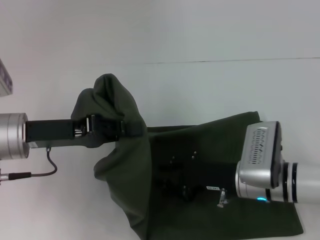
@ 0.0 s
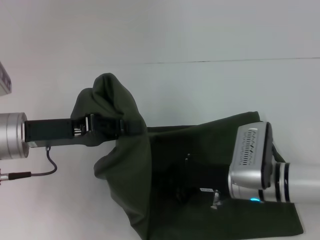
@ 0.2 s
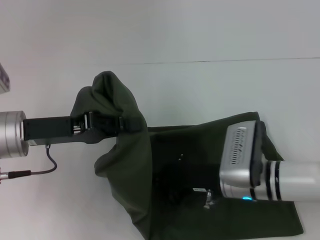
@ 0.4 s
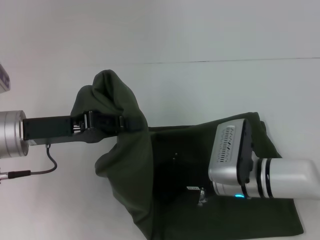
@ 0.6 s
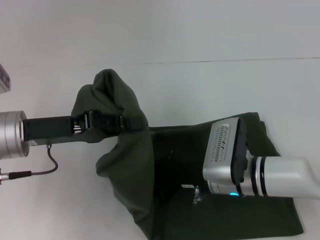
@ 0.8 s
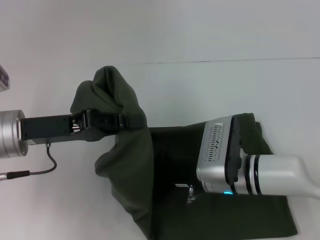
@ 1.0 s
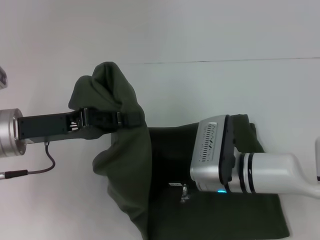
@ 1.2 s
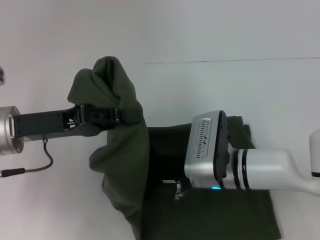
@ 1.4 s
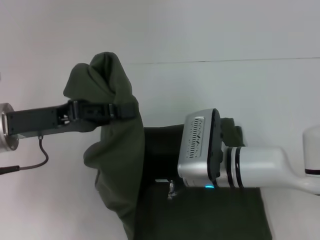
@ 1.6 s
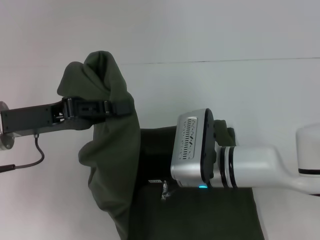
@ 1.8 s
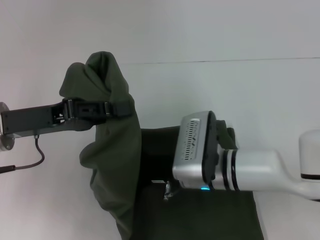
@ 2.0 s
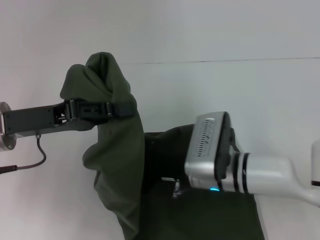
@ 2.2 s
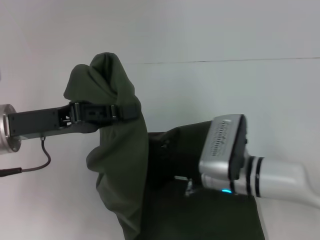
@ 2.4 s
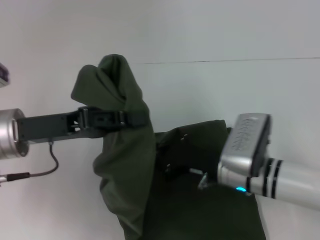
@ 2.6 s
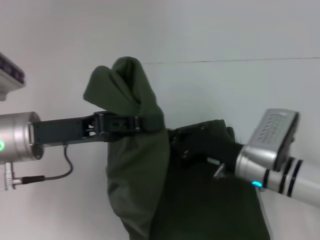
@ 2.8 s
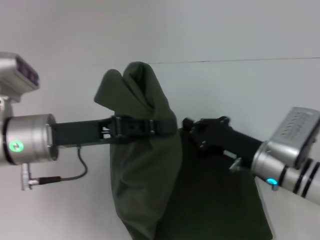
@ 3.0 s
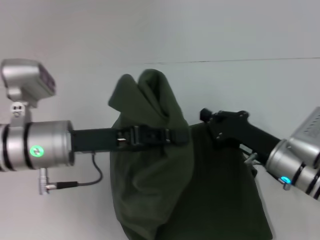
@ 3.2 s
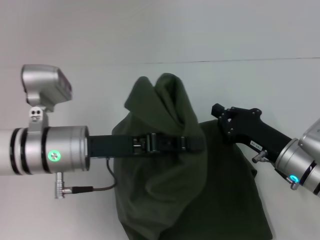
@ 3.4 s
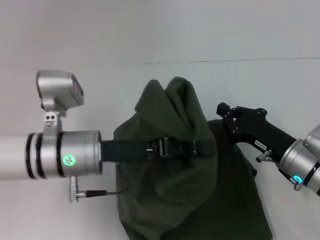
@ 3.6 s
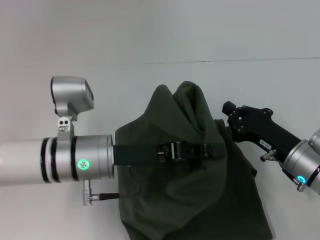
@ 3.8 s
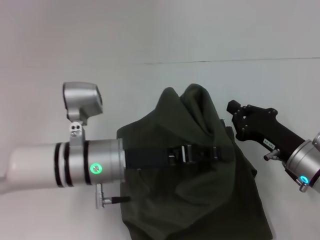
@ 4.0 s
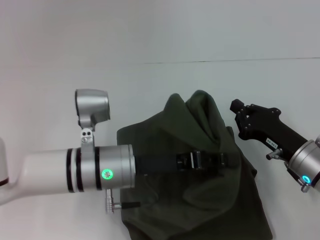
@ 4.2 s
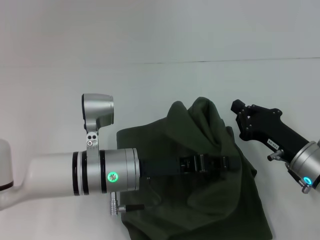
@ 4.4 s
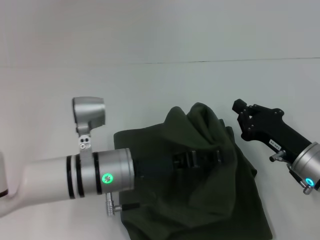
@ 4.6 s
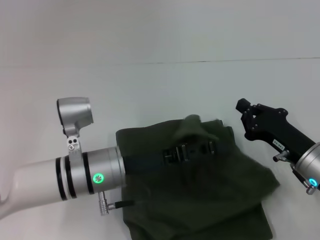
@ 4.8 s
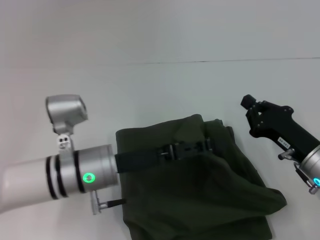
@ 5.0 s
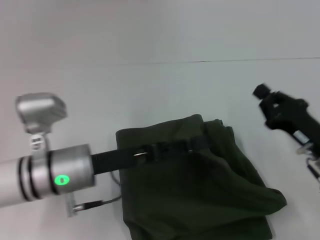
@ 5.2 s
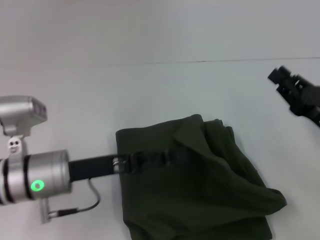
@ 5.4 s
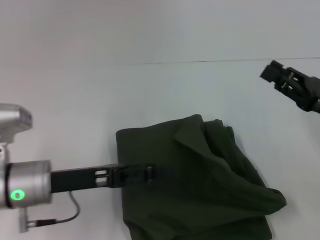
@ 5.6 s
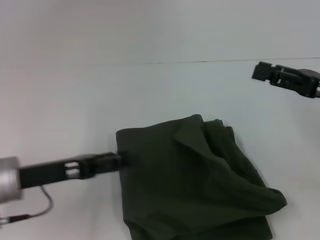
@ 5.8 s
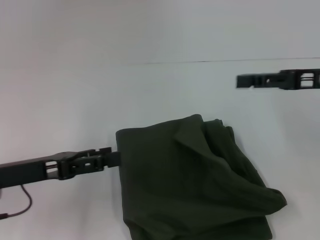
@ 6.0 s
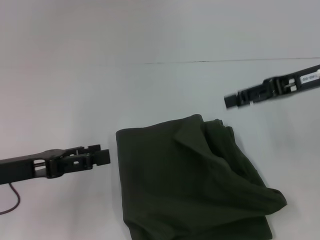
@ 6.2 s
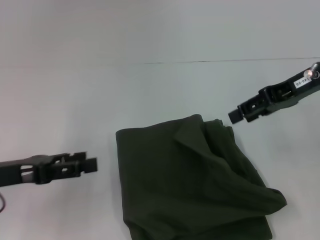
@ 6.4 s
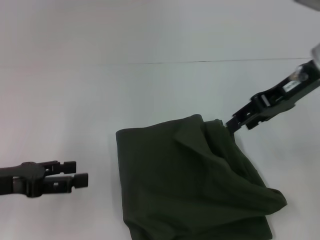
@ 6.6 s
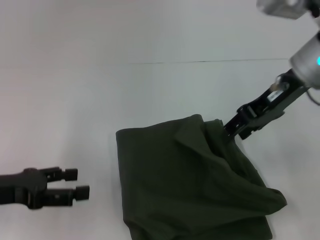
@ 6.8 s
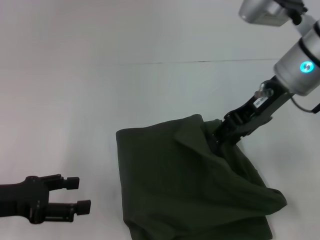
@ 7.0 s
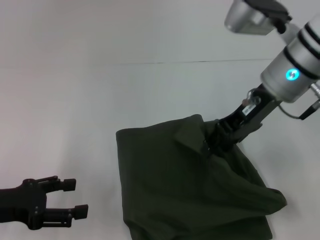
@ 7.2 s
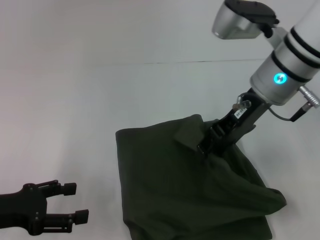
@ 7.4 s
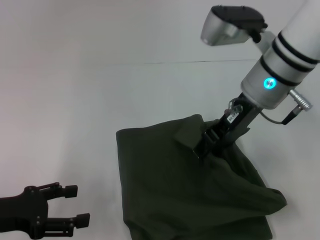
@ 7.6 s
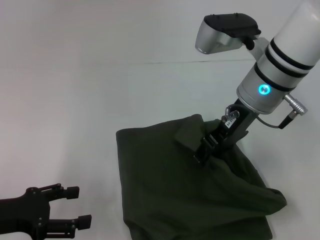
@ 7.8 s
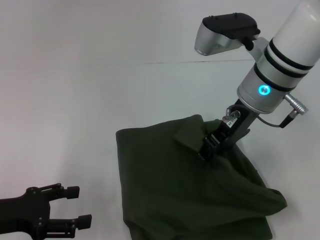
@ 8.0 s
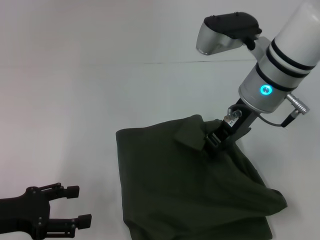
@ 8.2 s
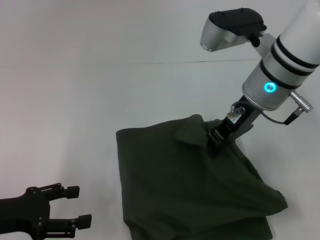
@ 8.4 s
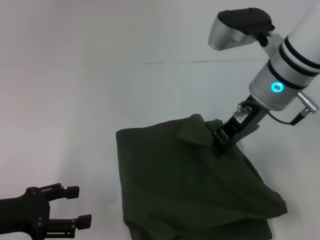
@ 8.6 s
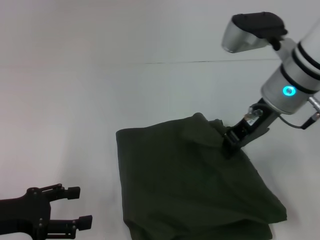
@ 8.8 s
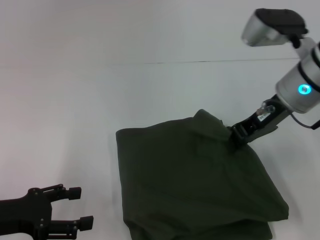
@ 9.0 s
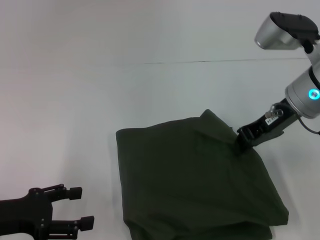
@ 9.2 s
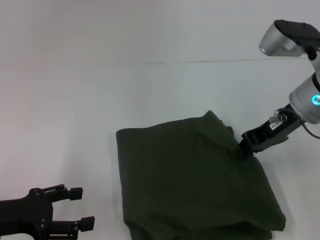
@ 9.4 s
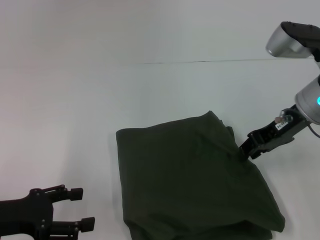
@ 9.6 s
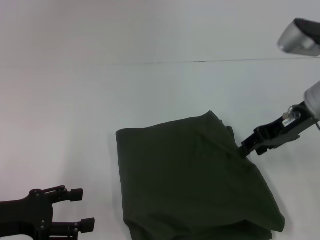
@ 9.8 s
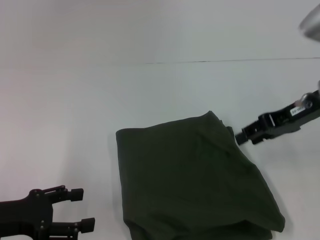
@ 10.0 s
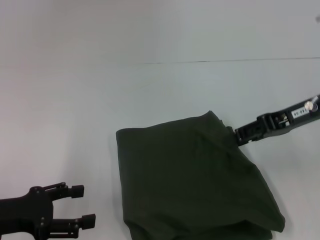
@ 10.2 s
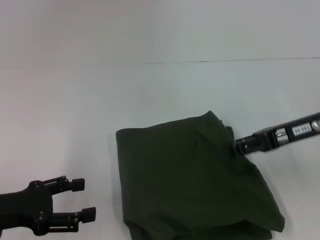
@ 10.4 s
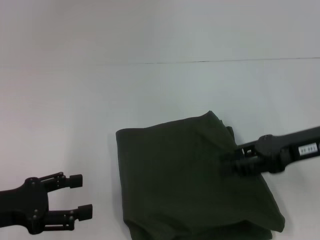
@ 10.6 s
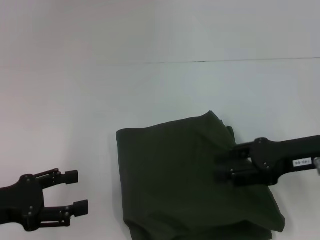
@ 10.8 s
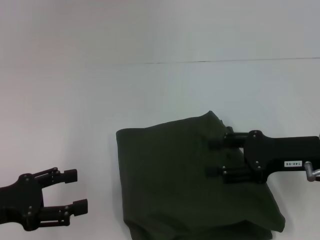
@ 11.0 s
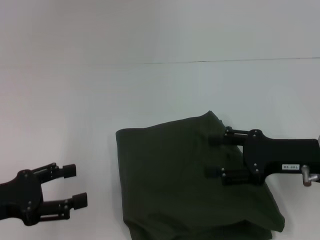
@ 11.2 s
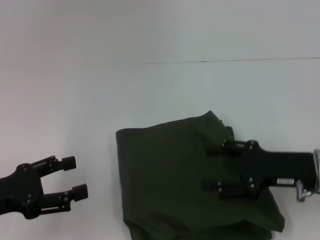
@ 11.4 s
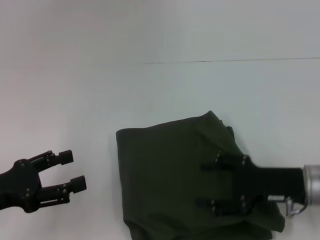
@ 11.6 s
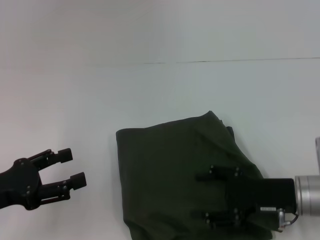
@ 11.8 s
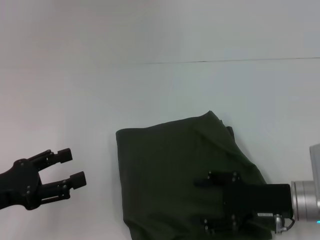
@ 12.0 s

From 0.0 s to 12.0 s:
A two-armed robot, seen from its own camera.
Step, from 0.0 s to 5.0 s: Fold the clothes with your left hand.
From 0.0 s to 1.6 s: The right gripper heads to the left, covering approximately 10 cm, and closes up.
From 1.6 s to 3.0 s: The left gripper is displaced to the right by roughly 5 cm; the right gripper is displaced to the right by roughly 10 cm.
From 3.0 s to 4.4 s: The left gripper moves to the right and downward, some 10 cm; the right gripper is displaced to the right by some 5 cm.
From 4.4 s to 6.0 s: The left gripper heads to the left, covering some 15 cm, and opens. The right gripper heads upward, covering about 15 cm, and opens.
From 6.0 s to 7.6 s: The left gripper moves roughly 5 cm, while the right gripper shifts roughly 15 cm to the left.
From 7.6 s to 9.0 s: The right gripper shifts some 5 cm to the right, and closes.
From 9.0 s to 10.4 s: The right gripper shifts roughly 5 cm to the right, and opens up.
From 10.4 s to 12.0 s: The right gripper goes some 15 cm downward and backward.

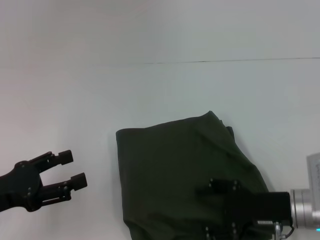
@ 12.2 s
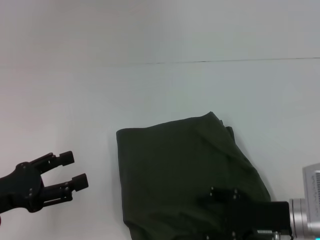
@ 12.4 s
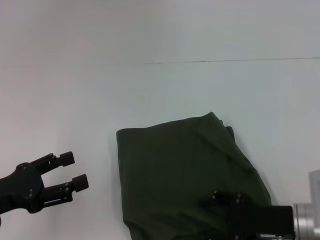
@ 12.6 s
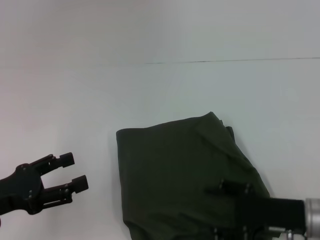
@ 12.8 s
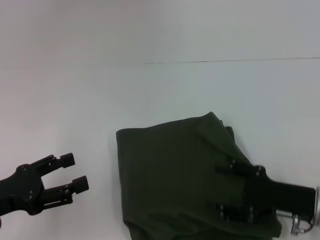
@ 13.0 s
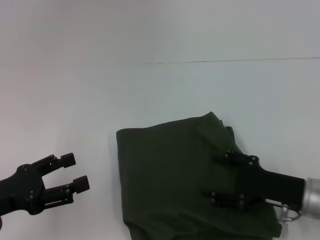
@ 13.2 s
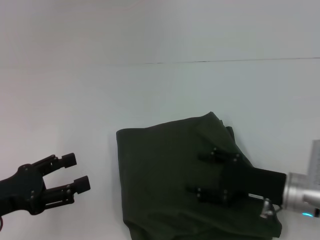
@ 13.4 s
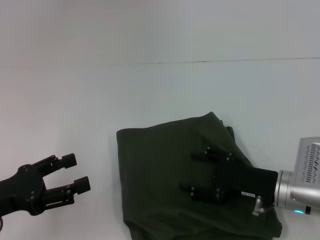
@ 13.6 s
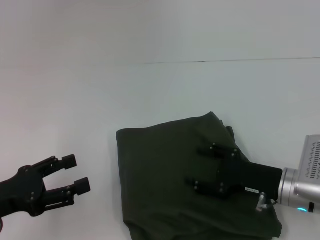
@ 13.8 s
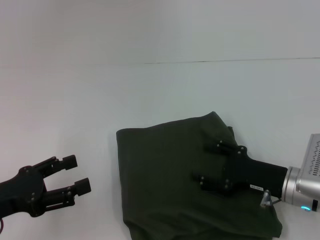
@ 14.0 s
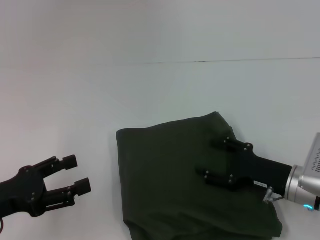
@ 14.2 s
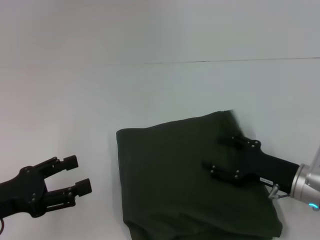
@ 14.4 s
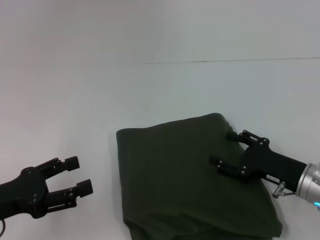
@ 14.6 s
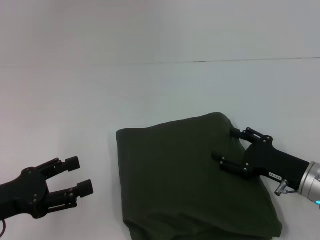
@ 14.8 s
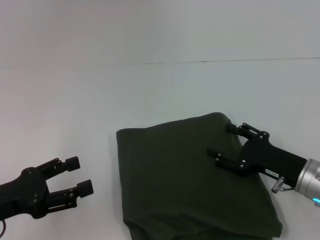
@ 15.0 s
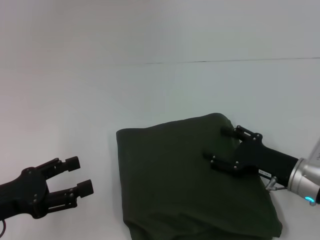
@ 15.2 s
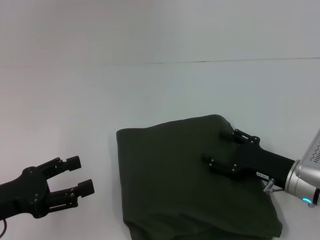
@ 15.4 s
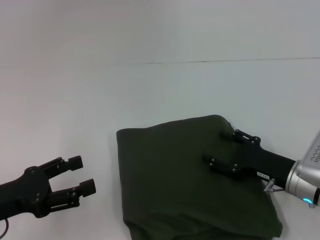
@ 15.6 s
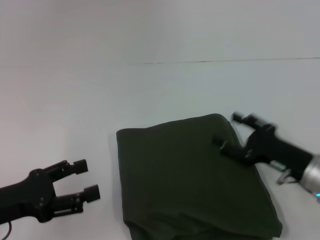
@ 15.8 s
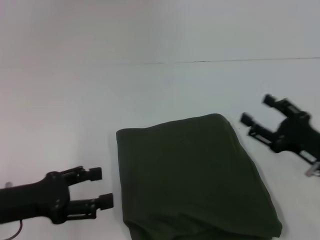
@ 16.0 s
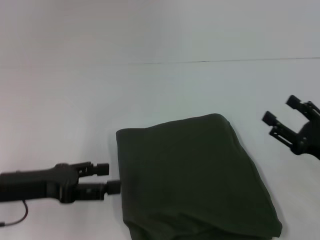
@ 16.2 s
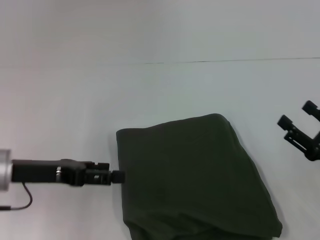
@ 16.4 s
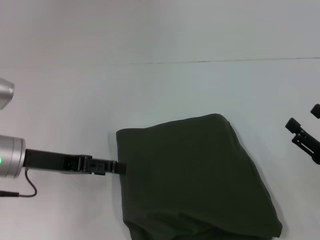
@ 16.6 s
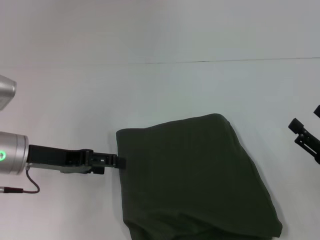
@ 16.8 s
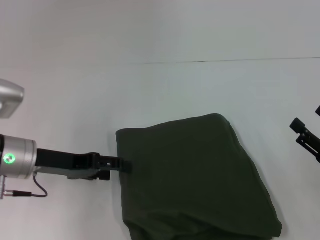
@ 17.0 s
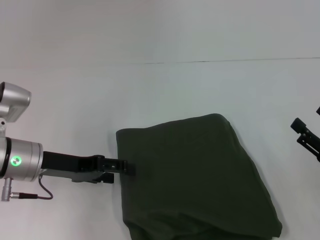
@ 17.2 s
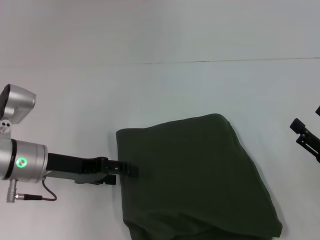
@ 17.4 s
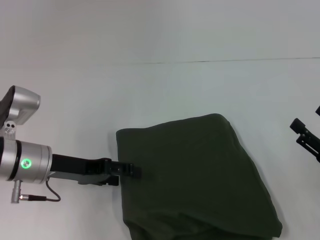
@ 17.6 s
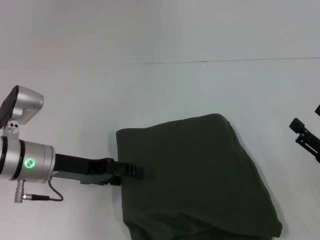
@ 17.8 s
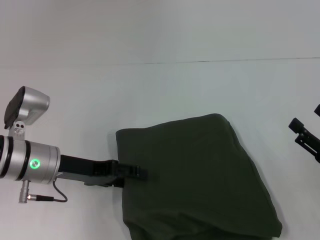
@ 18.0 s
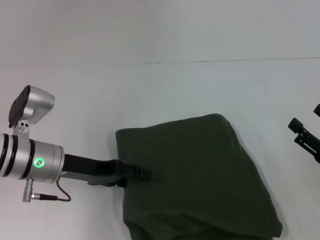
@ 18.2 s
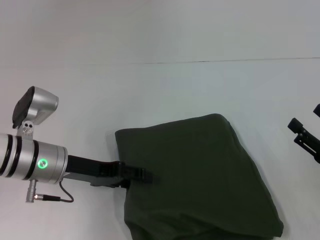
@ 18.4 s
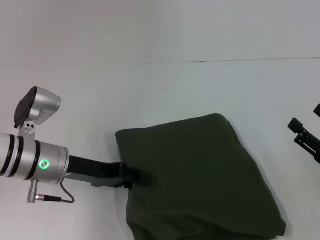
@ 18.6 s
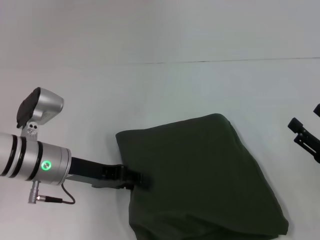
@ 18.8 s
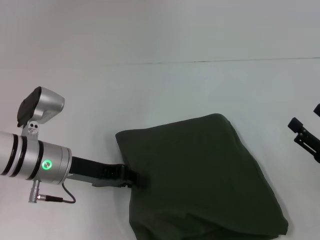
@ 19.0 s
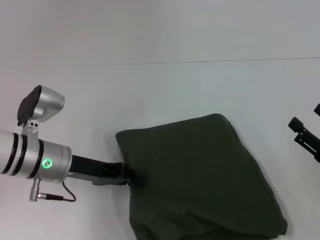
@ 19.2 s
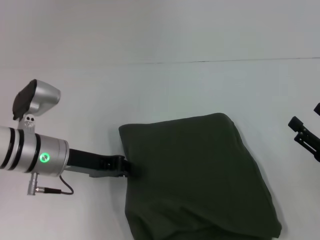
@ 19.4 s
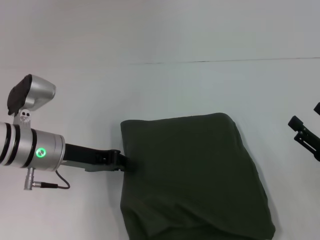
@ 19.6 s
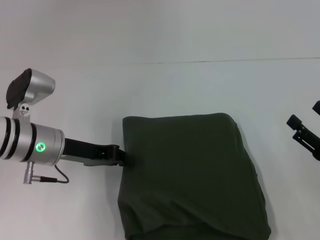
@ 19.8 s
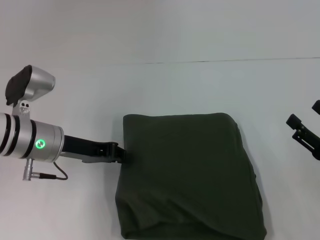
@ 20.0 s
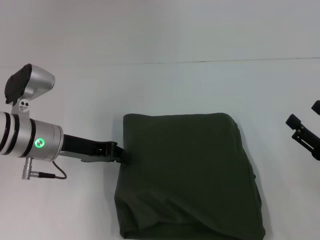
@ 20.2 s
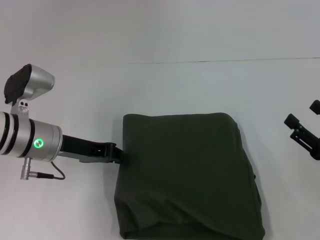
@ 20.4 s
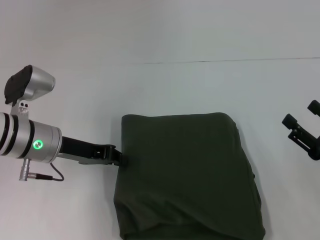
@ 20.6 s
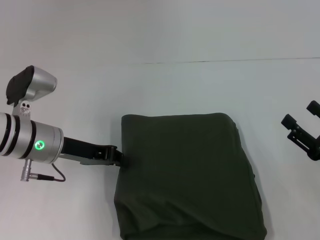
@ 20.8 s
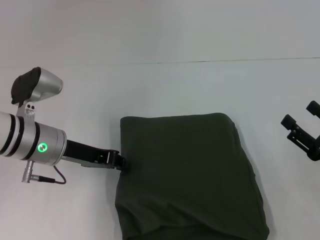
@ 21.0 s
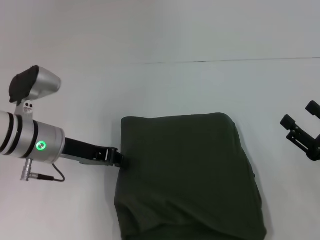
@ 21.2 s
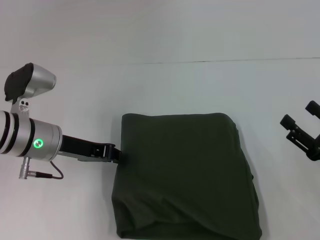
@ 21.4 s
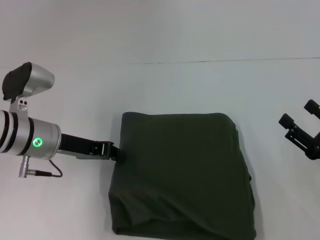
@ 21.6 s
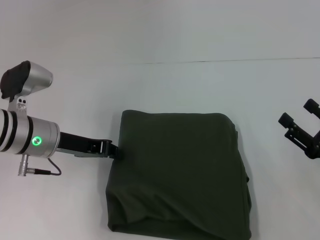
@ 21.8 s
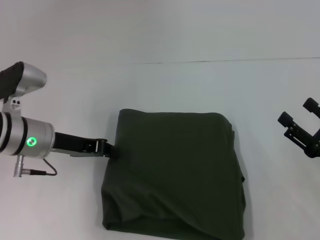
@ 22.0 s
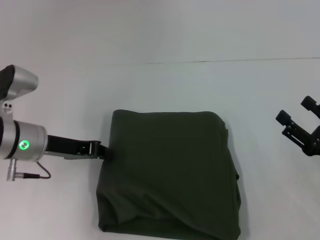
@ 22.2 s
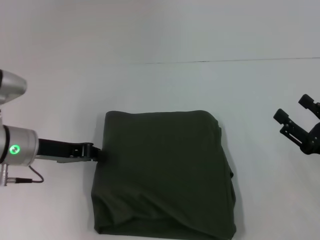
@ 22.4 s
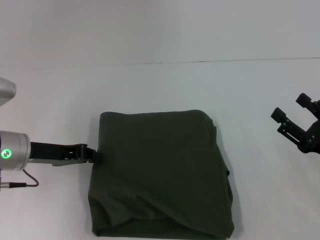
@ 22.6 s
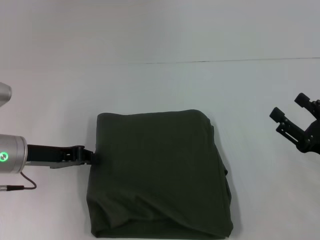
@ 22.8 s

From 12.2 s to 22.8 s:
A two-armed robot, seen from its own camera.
From 12.2 s to 13.8 s: The grippers stay close to where they were, moving slightly.
From 13.8 s to 15.2 s: The grippers make only small movements.
From 15.2 s to 16.8 s: The left gripper is displaced forward and to the right by approximately 10 cm. The right gripper is displaced to the right and backward by some 10 cm.
From 16.8 s to 18.2 s: The grippers move only a little.
From 18.2 s to 19.8 s: The left gripper closes up.
From 19.8 s to 21.2 s: There are only small adjustments of the grippers.
From 21.2 s to 22.8 s: The left gripper heads to the left, covering about 5 cm.
